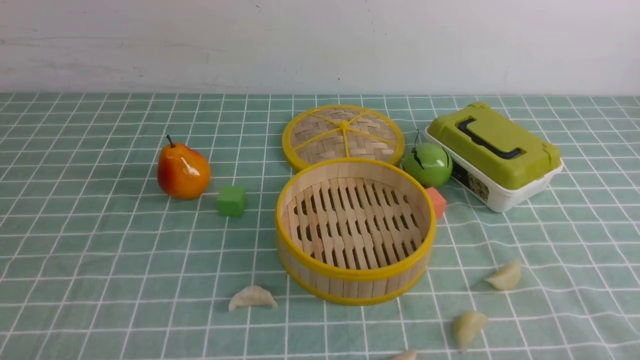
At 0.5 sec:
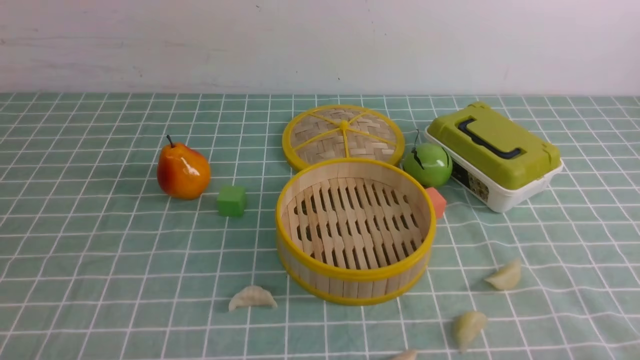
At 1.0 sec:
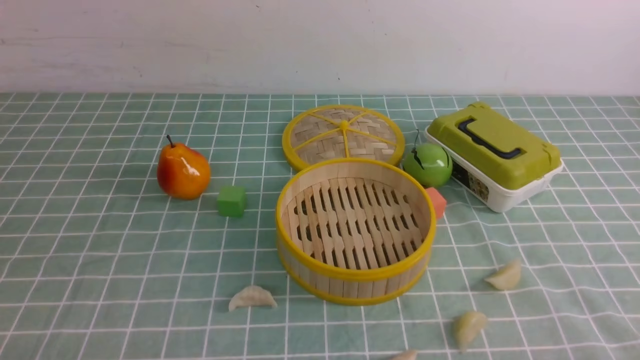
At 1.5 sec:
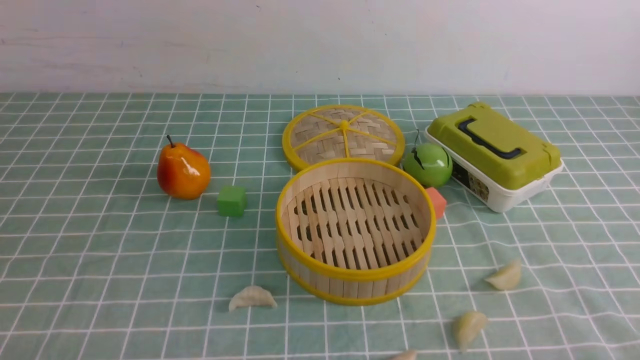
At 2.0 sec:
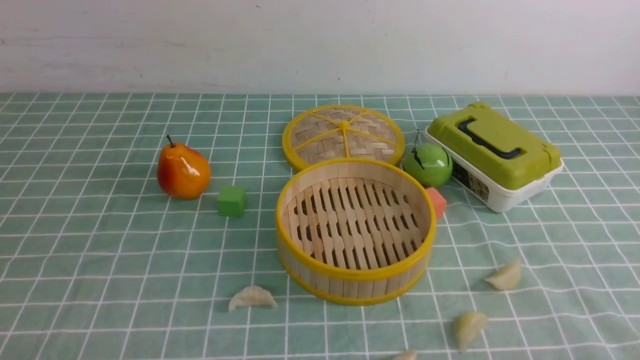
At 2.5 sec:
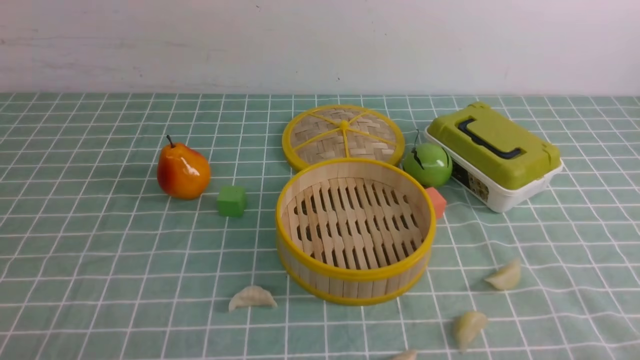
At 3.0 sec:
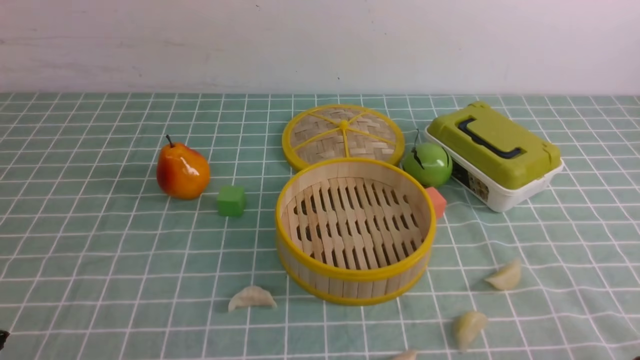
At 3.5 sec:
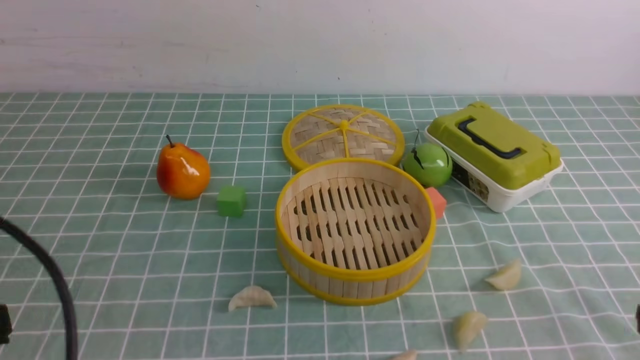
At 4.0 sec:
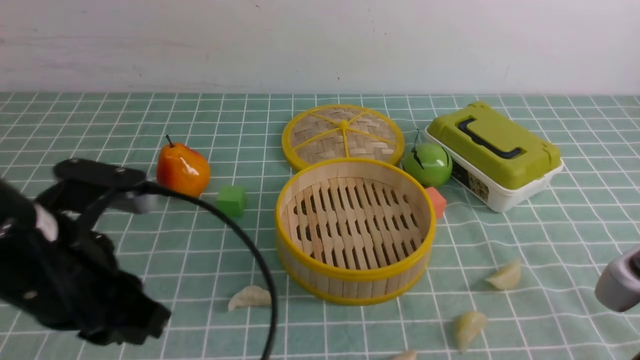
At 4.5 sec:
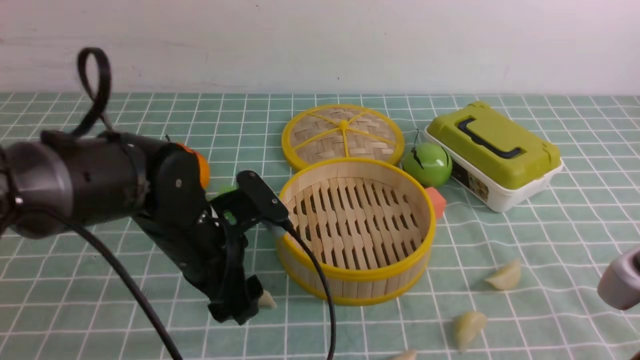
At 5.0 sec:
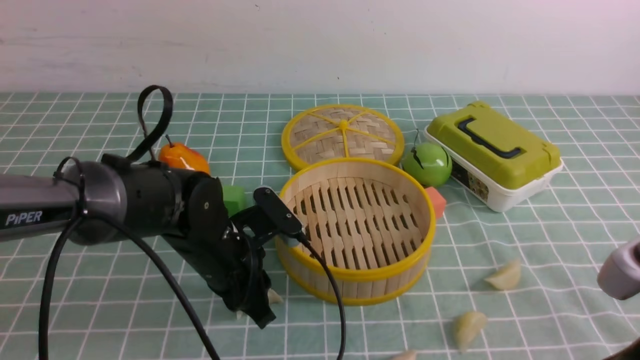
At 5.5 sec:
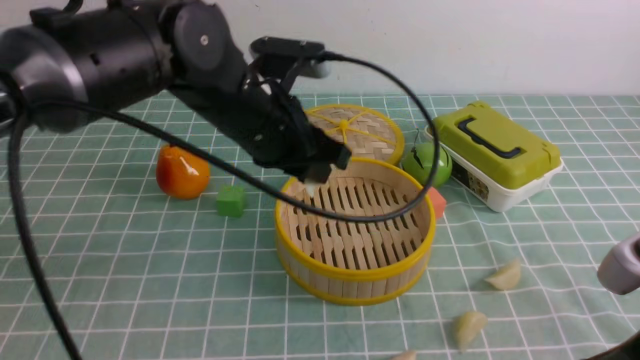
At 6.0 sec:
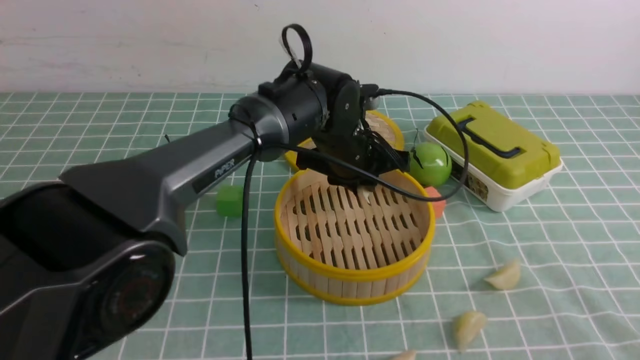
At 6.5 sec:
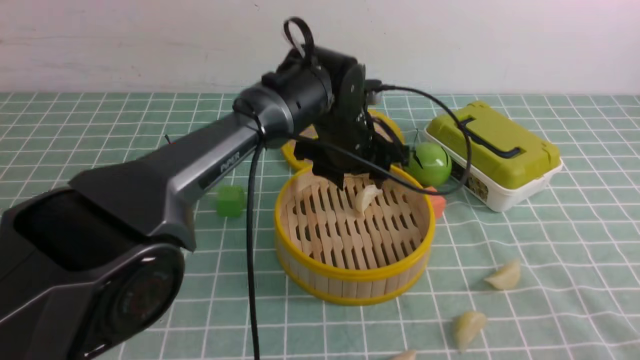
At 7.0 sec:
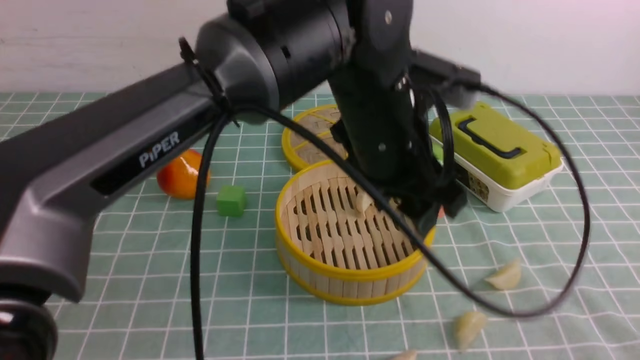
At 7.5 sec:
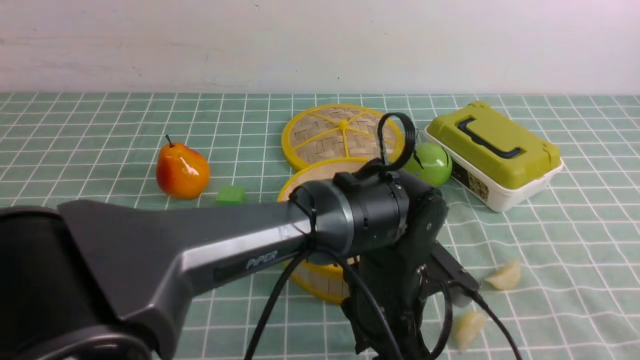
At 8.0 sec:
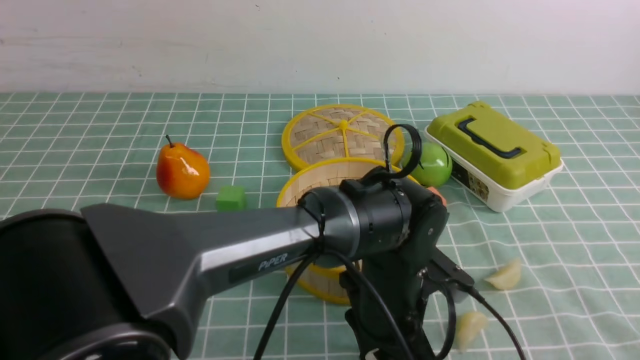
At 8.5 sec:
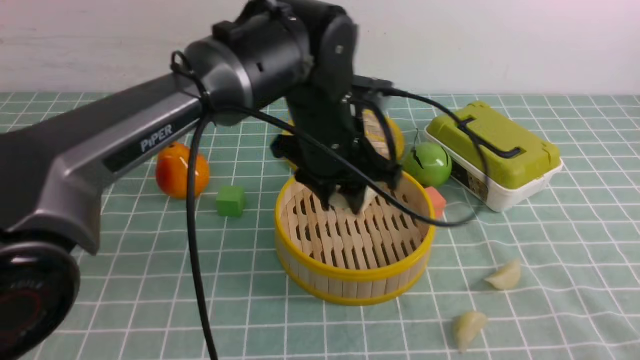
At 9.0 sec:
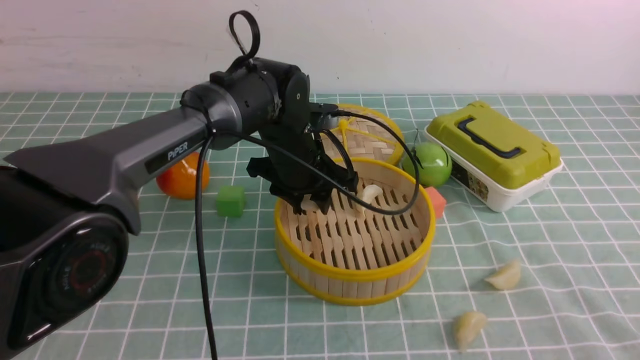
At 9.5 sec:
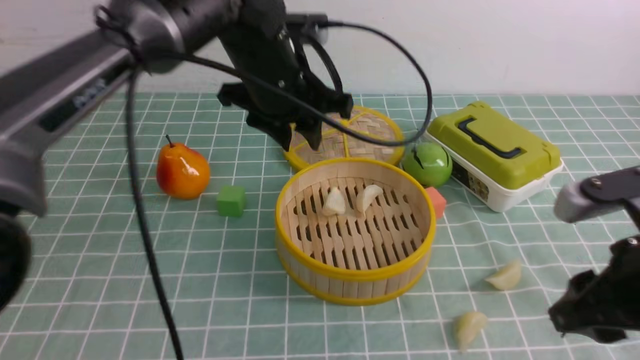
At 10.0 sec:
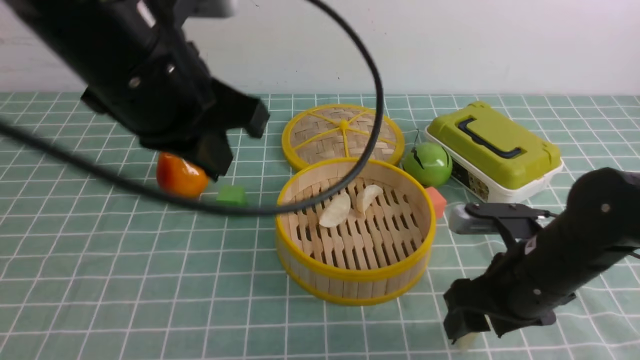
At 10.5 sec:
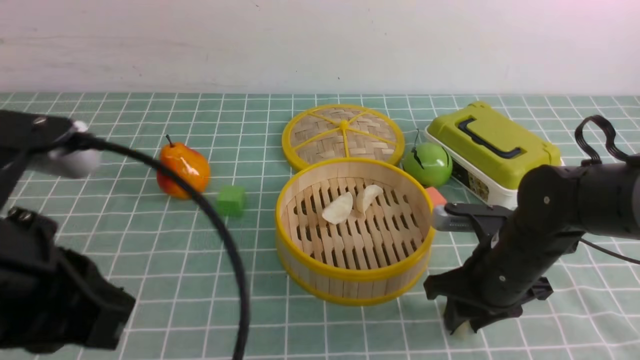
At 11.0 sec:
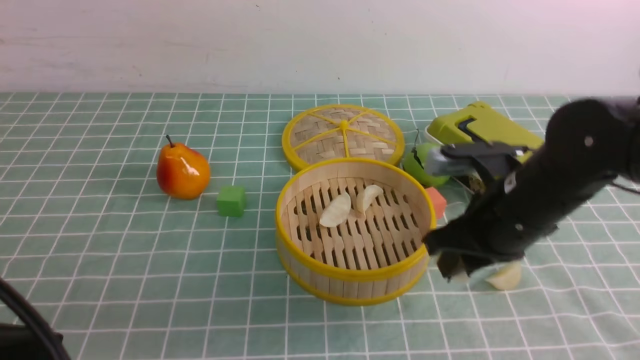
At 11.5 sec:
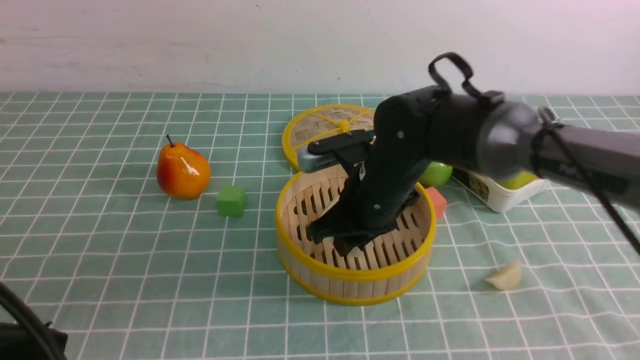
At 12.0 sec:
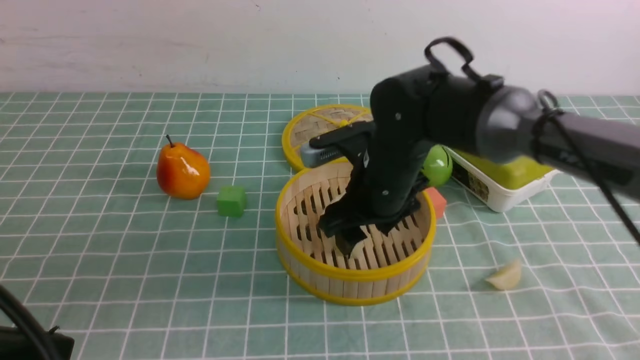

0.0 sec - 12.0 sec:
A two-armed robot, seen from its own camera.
Task of the whole recording: put the dumplings into the steamer on the table with the blue tablecloth.
Step, 0.0 sec - 5.0 sec: use the left arm to grab a dumpling.
Step, 5.5 sec - 6.5 sec: use the left arm to put the dumpling into the steamer.
Step, 7.0 sec - 8.0 sec: use the left arm to grab a dumpling.
Step, 8.5 sec - 9.0 sec: use the left arm to put the dumpling into the steamer.
Step, 9.5 sec - 10.5 sec: use the right arm to grab a dumpling.
Step, 11.0 sec - 11.5 sec: use the right arm to put the dumpling into the steamer.
0.0 sec - 2.0 sec: The two grippers keep their place.
2.0 sec - 4.0 sec: The left gripper shifts roughly 20 cm forward, upward and to the right, and closes, then opens again; the right gripper moves upward, forward and to the left, some 15 cm, and closes up.
4.0 sec - 6.0 sec: The left gripper goes approximately 30 cm forward and to the right, and opens and closes again.
6.0 sec - 8.0 sec: The left gripper shifts some 15 cm backward.
8.0 sec - 10.0 sec: The left gripper swings up and down, approximately 20 cm each way, with 2 reversals, and closes up, while the right gripper shifts roughly 25 cm forward, downward and to the left, and opens up.
10.0 sec - 12.0 sec: The right gripper moves to the left, forward and upward, approximately 15 cm, and closes, then opens again, while the left gripper moves backward and to the left, some 20 cm.

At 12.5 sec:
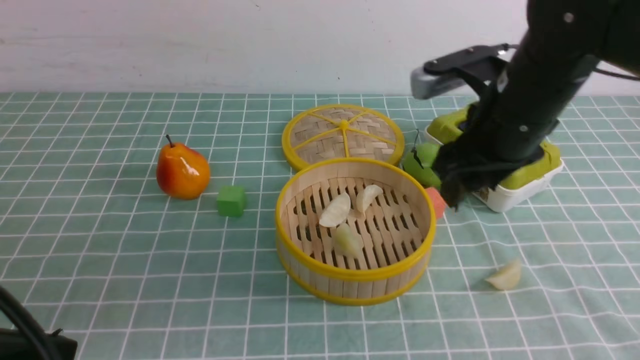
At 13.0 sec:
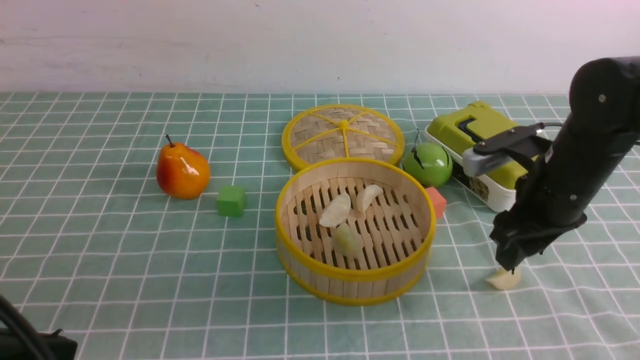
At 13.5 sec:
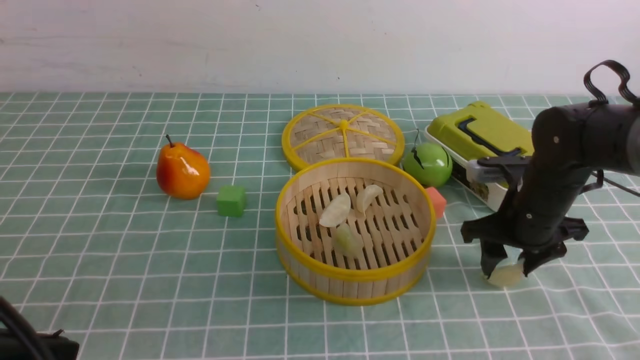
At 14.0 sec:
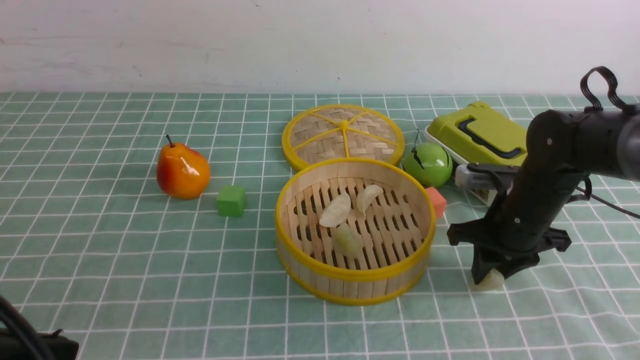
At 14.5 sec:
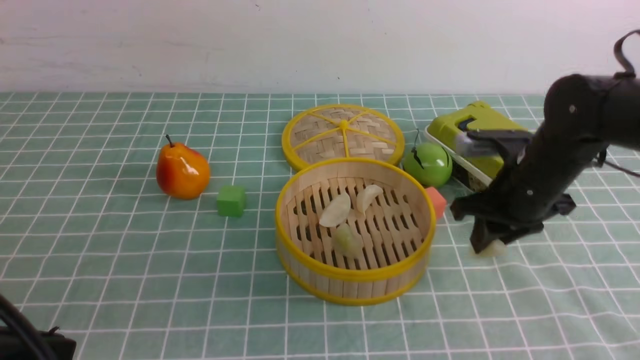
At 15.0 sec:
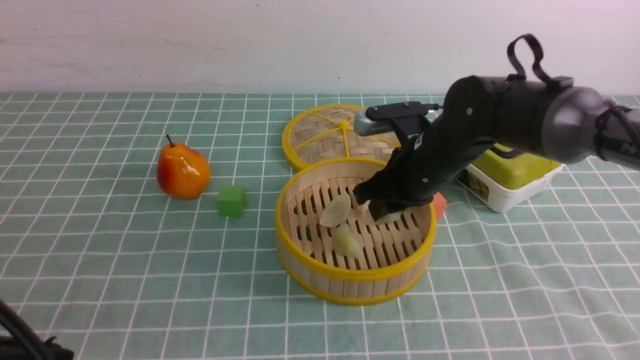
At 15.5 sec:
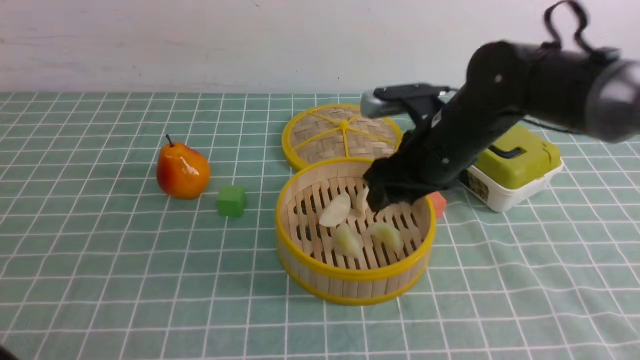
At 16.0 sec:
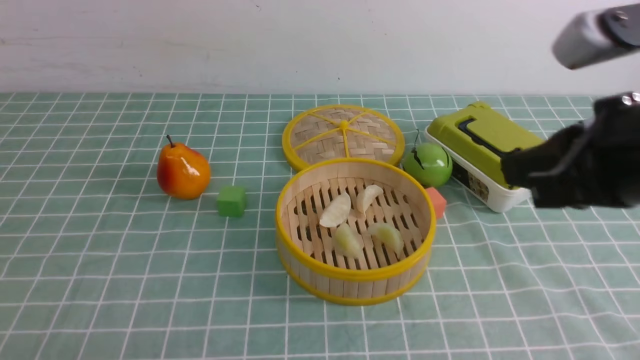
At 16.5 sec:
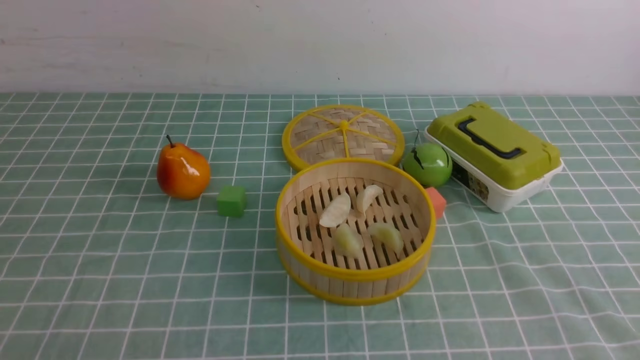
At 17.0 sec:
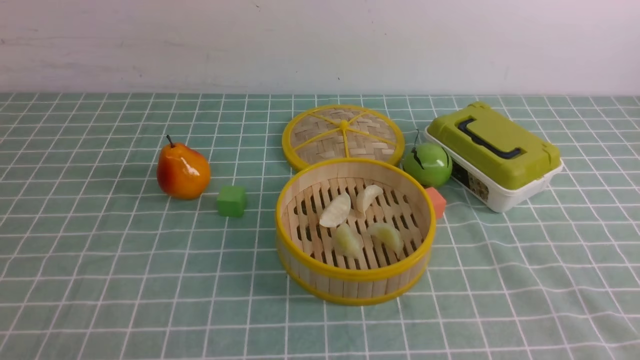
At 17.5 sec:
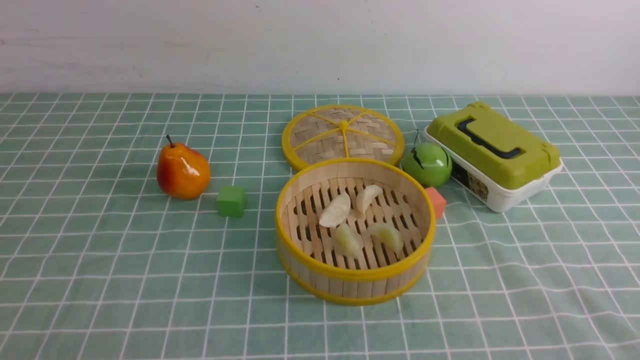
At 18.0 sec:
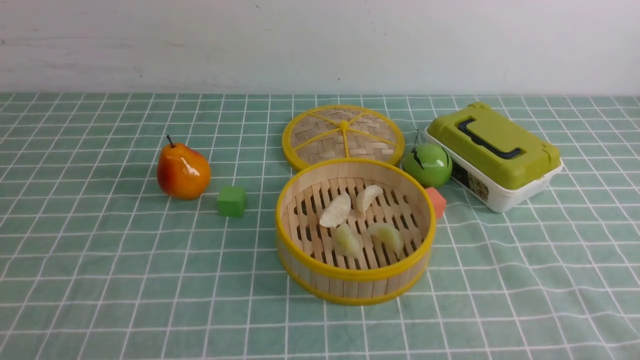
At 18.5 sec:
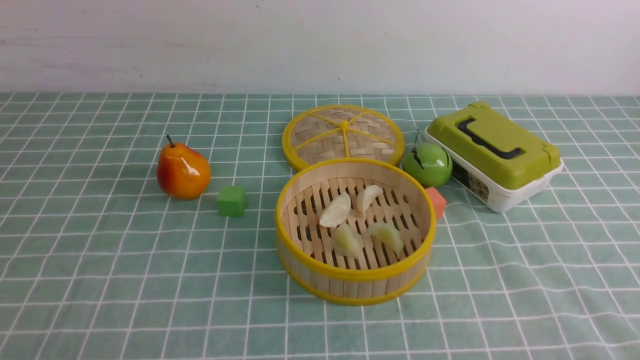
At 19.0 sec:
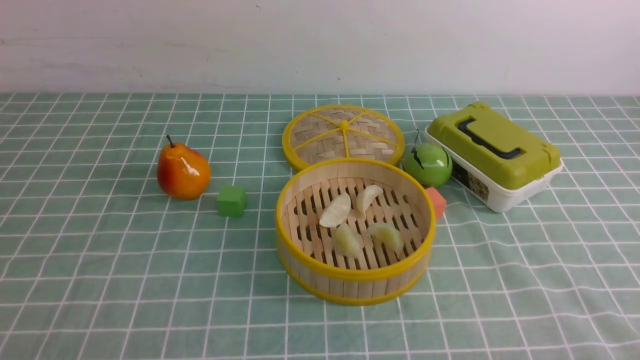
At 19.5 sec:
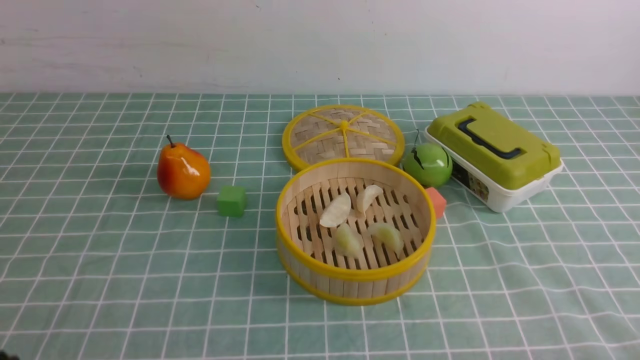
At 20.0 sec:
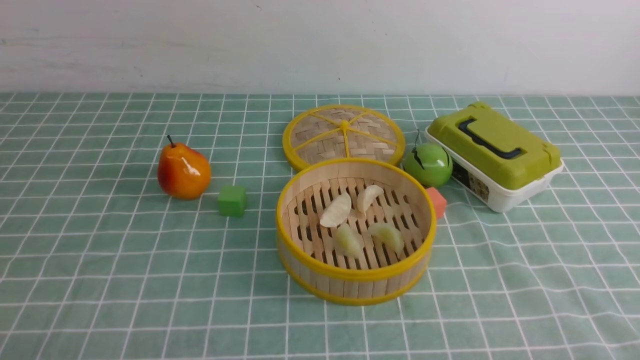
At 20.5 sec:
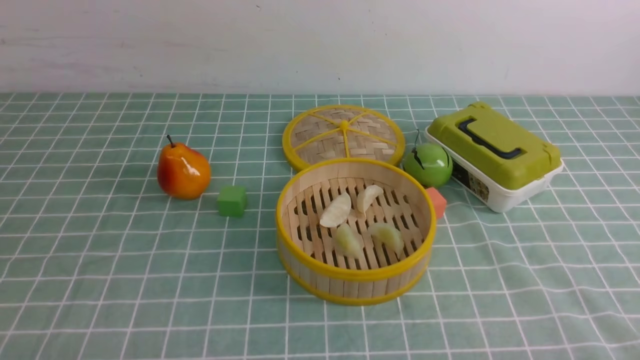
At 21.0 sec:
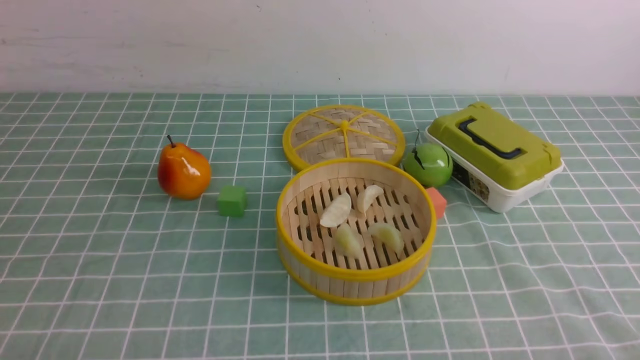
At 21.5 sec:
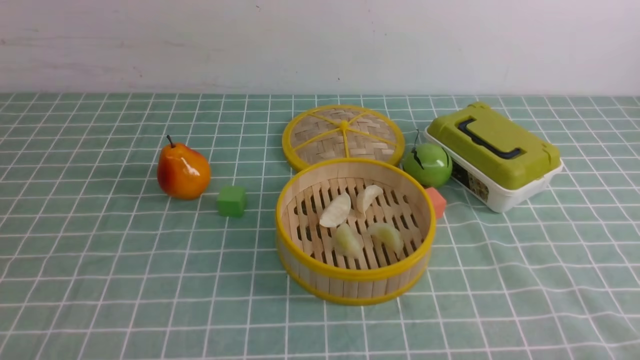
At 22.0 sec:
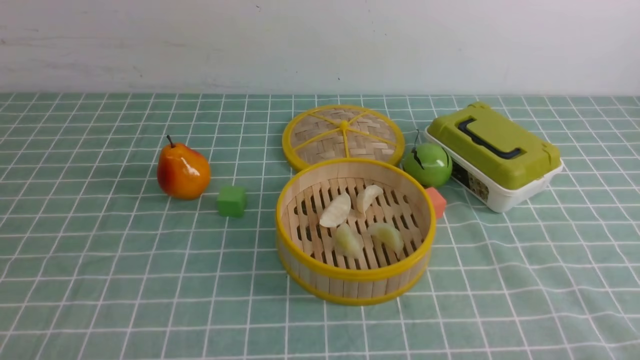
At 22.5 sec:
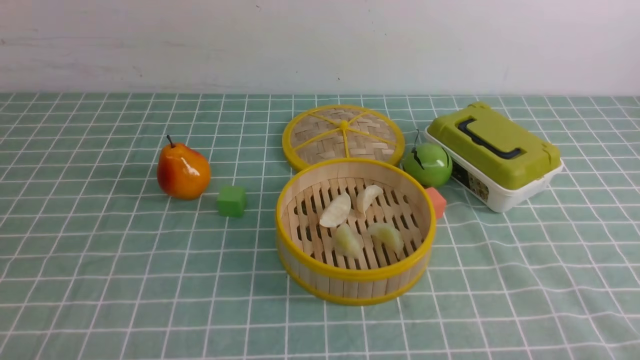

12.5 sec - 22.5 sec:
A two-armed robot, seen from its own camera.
Task of the whole recording: put the dumplings into the steamer on the table with the blue tablecloth.
Step, 12.5 sec - 14.5 sec: use the right arm to grab a dumpling.
Step, 15.0 sec - 15.5 sec: use the right arm to put the dumpling into the steamer.
12.5 sec - 14.5 sec: The right gripper goes some 5 cm downward, and closes.
14.5 sec - 16.5 sec: The left gripper shifts approximately 5 cm downward. Meanwhile the right gripper is displaced backward and upward by about 35 cm, and closes up.
